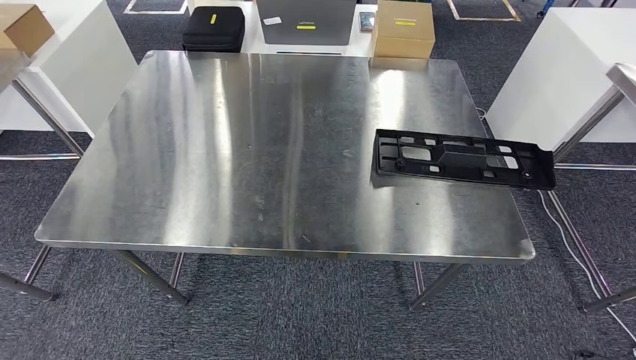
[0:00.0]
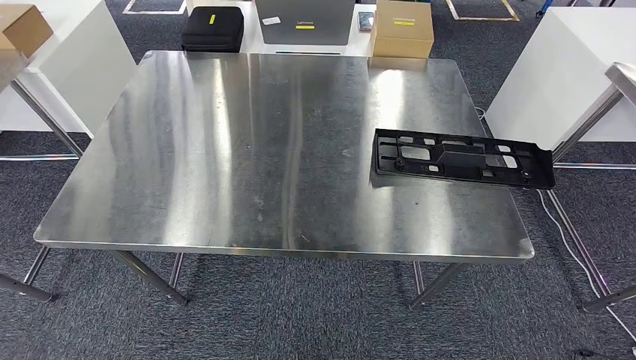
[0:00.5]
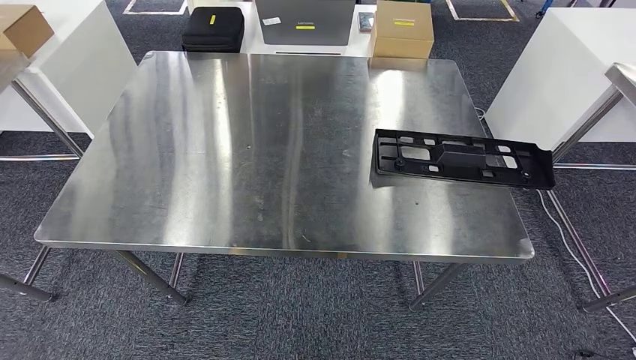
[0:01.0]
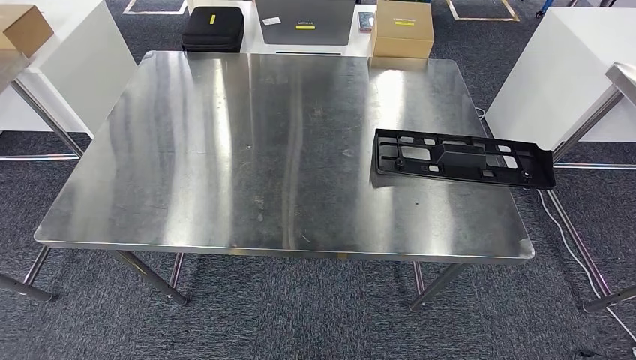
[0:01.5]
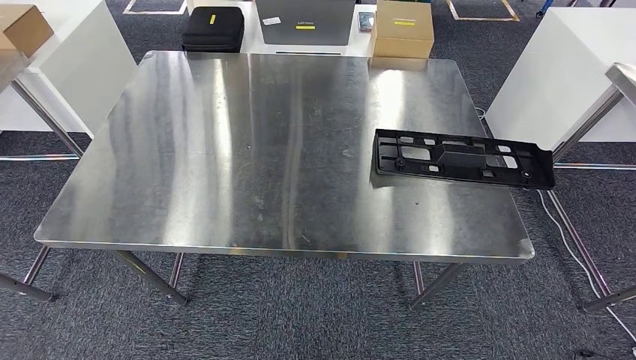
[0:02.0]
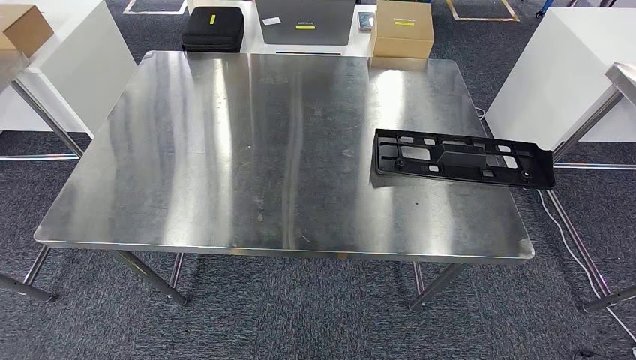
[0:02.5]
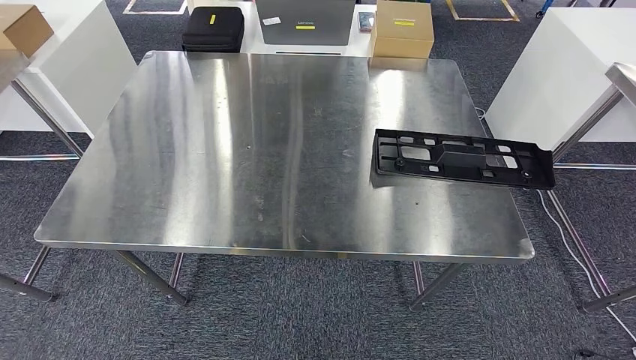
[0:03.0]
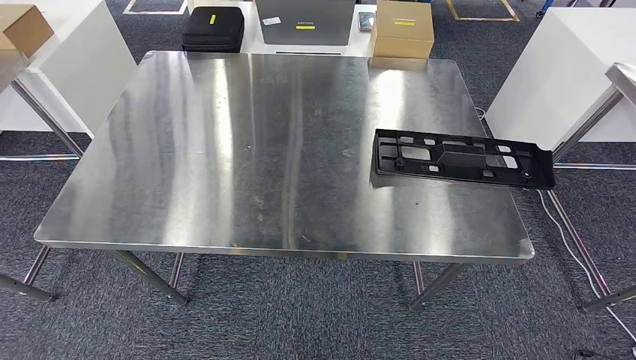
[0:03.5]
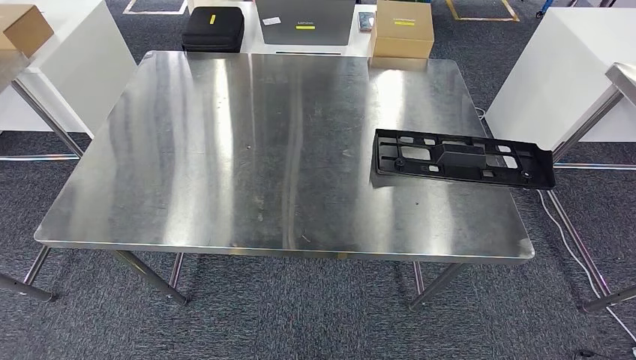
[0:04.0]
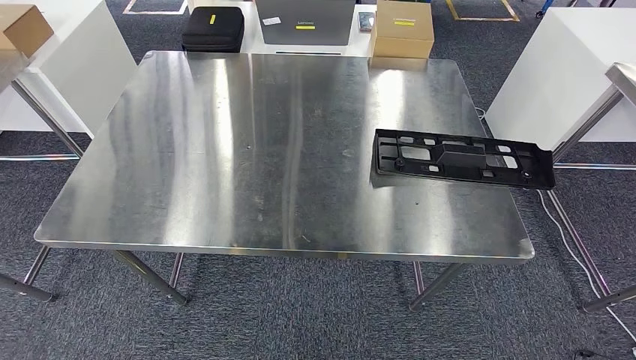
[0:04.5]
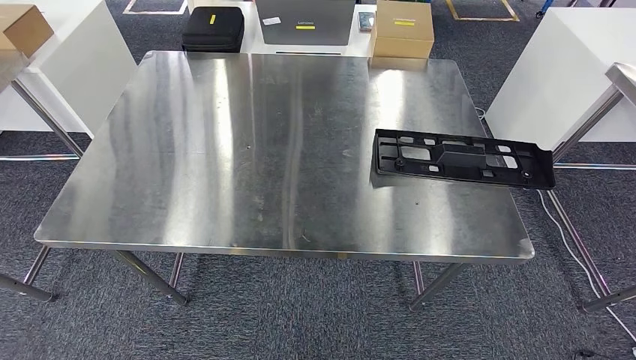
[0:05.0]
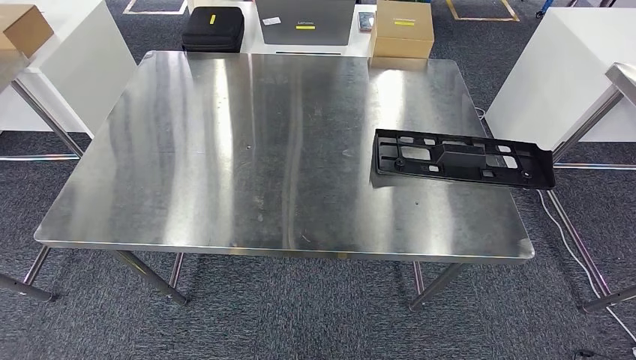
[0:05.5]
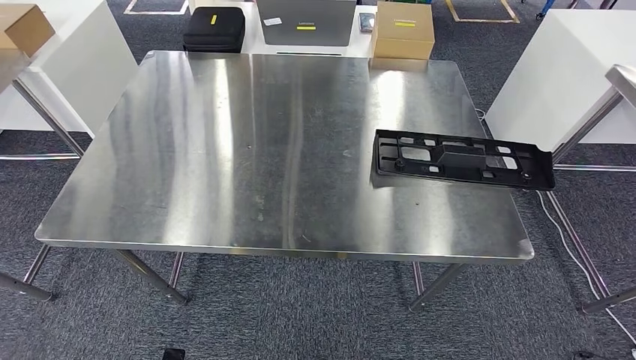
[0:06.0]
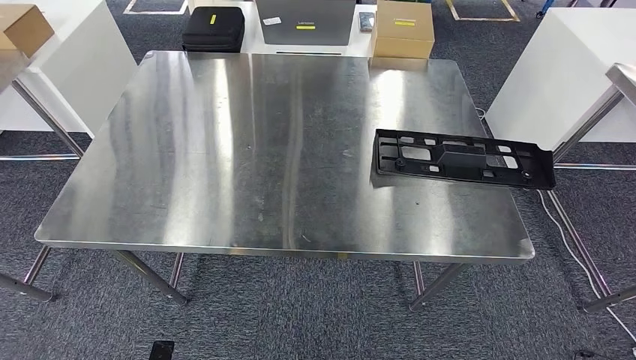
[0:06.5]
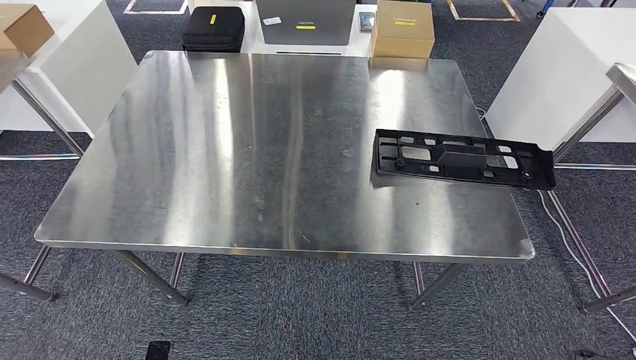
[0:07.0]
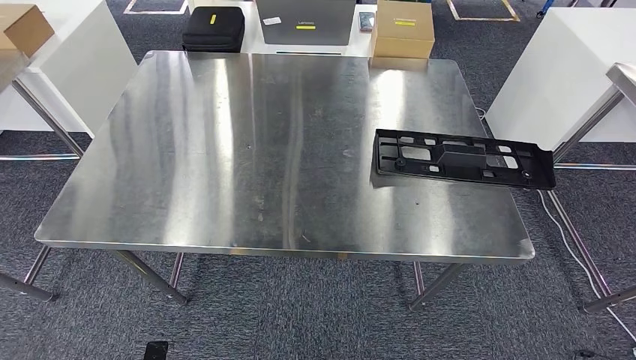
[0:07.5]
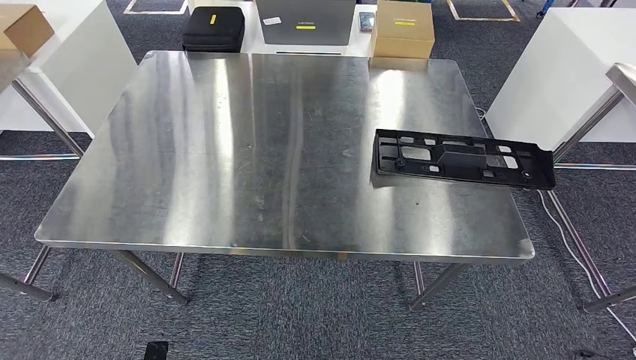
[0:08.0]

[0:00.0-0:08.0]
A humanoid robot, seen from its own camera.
Step, 0:00.0 to 0:08.0: Return to the initial position at the shelf.
0:02.0 to 0:04.0: Neither hand changes place.
0:04.0 to 0:06.0: The right hand heads downward, covering approximately 5 cm.
0:06.0 to 0:08.0: The hands move only a little.
